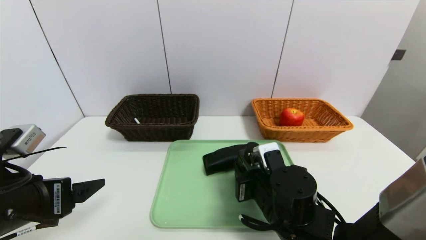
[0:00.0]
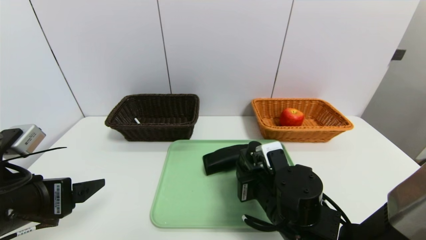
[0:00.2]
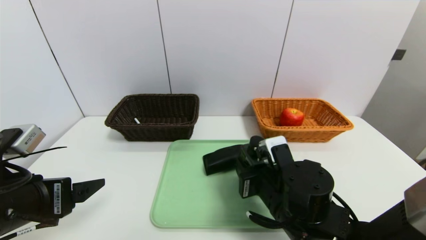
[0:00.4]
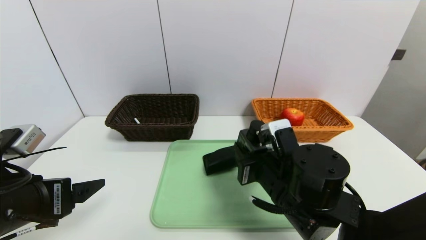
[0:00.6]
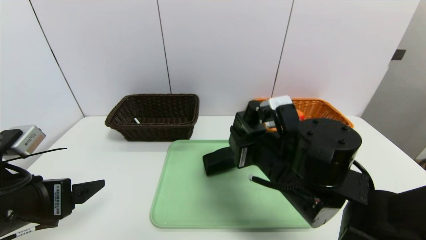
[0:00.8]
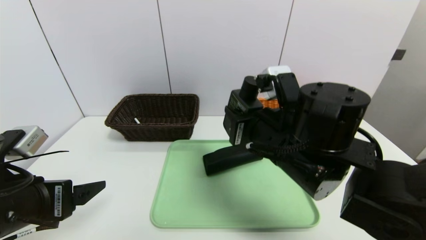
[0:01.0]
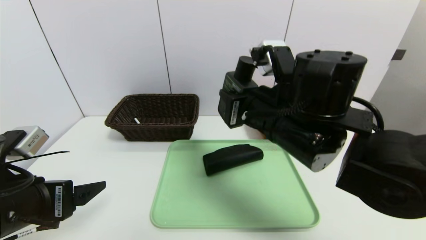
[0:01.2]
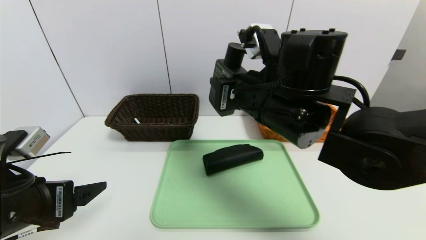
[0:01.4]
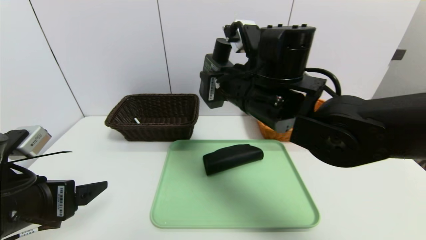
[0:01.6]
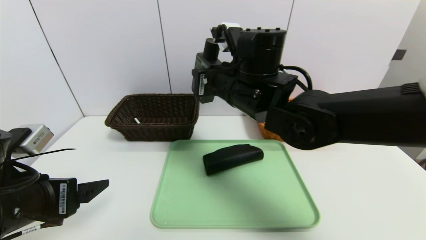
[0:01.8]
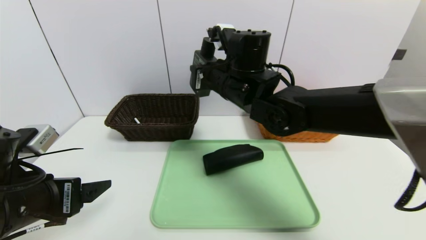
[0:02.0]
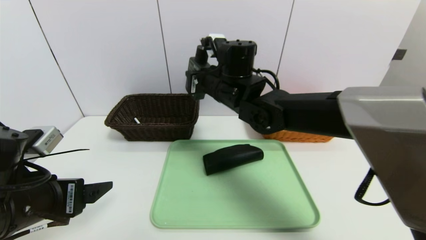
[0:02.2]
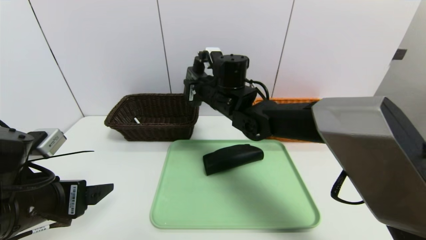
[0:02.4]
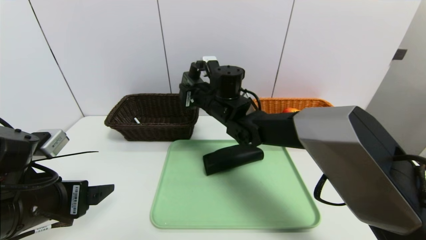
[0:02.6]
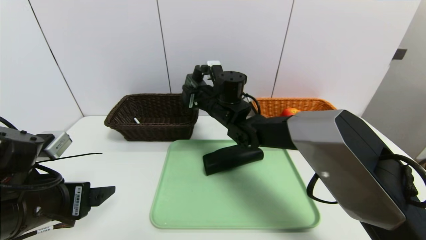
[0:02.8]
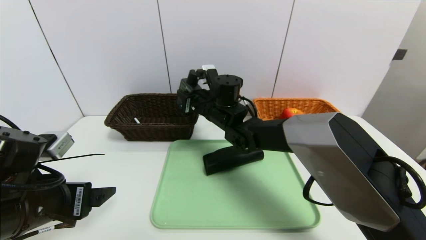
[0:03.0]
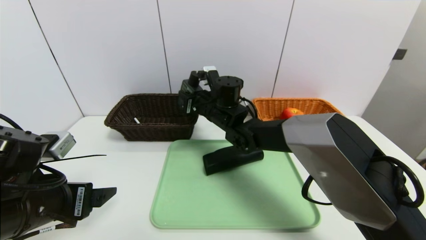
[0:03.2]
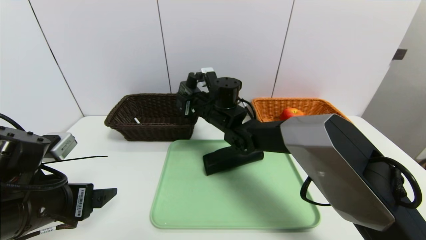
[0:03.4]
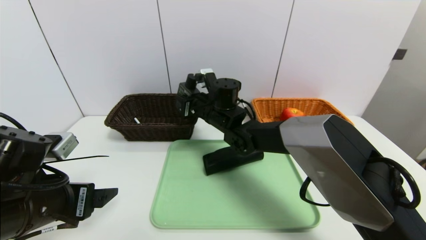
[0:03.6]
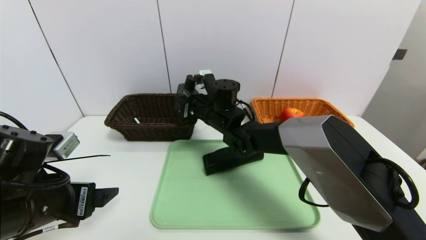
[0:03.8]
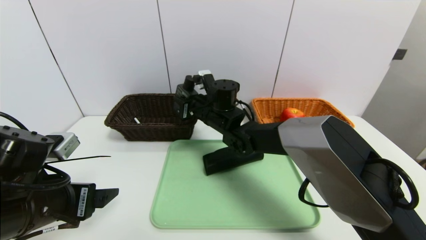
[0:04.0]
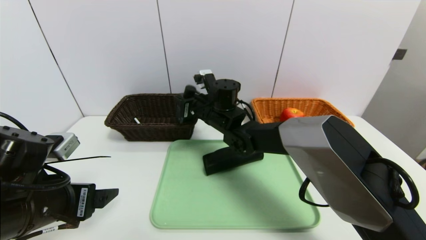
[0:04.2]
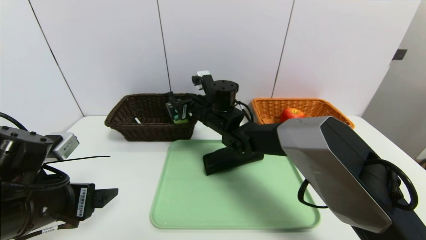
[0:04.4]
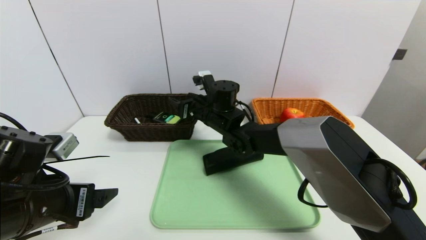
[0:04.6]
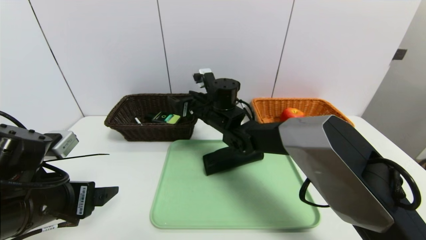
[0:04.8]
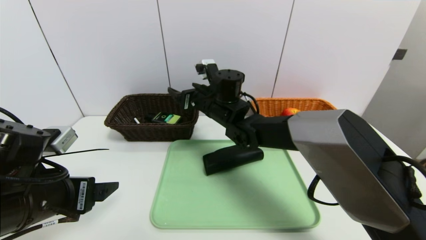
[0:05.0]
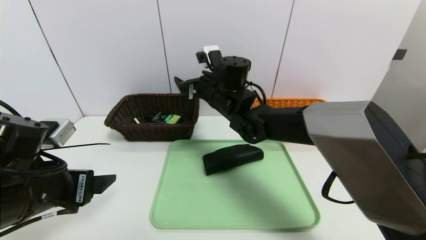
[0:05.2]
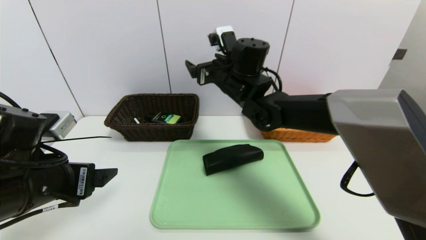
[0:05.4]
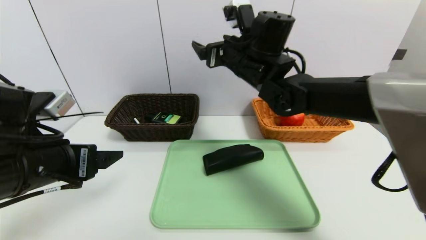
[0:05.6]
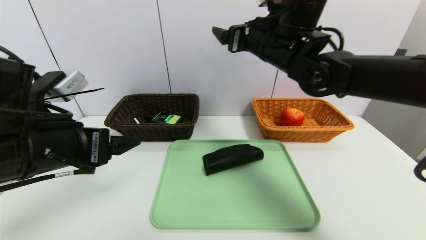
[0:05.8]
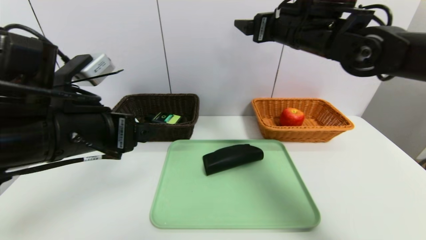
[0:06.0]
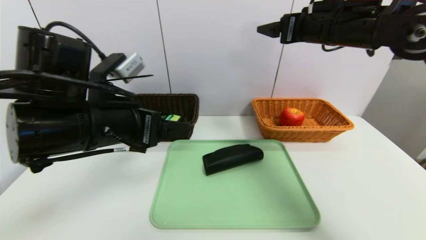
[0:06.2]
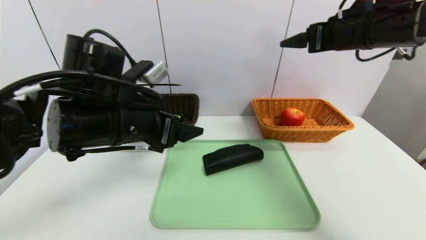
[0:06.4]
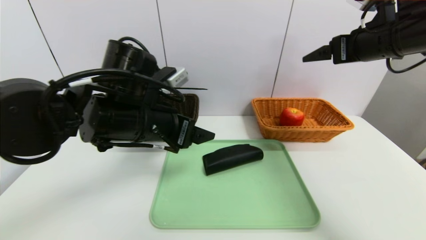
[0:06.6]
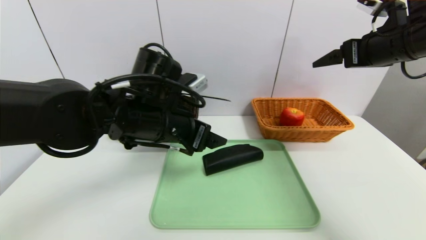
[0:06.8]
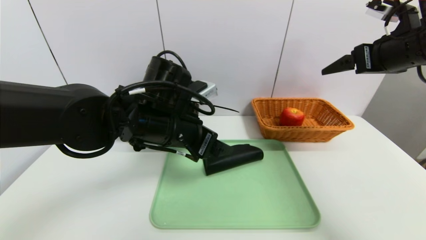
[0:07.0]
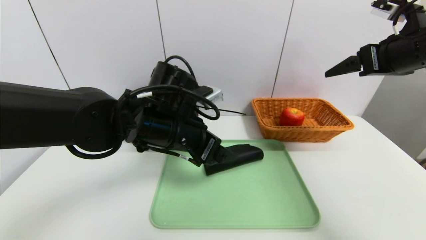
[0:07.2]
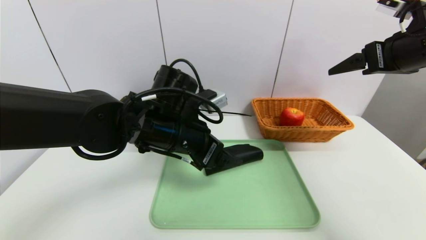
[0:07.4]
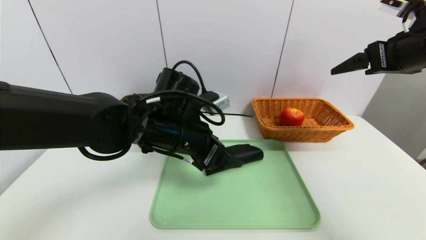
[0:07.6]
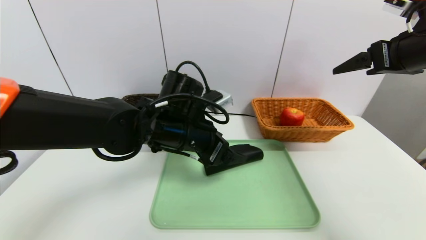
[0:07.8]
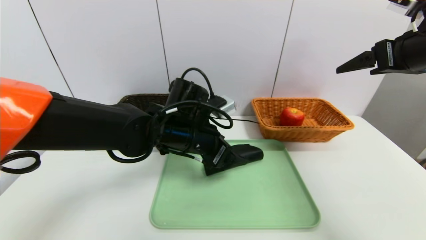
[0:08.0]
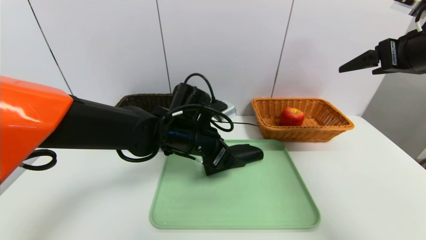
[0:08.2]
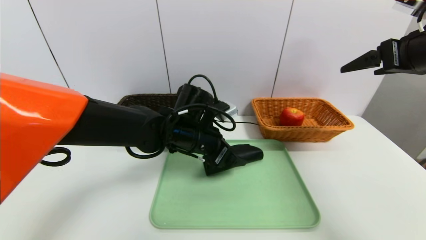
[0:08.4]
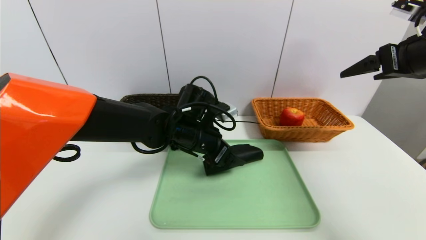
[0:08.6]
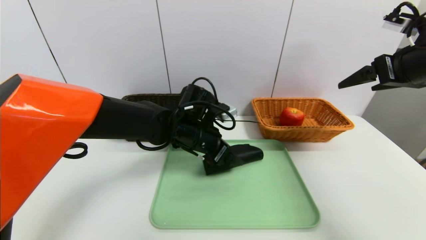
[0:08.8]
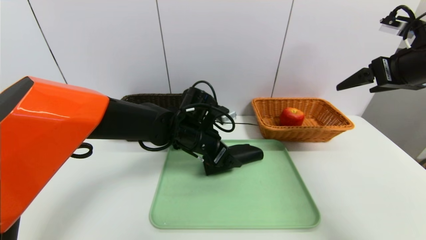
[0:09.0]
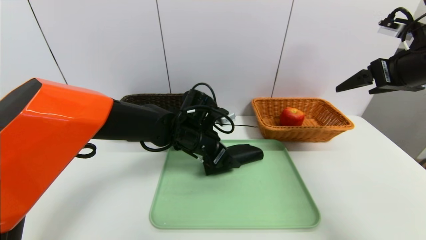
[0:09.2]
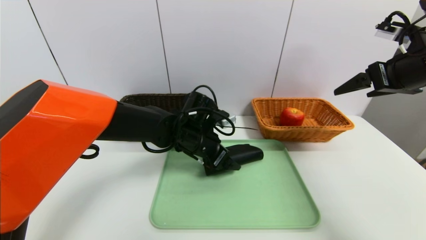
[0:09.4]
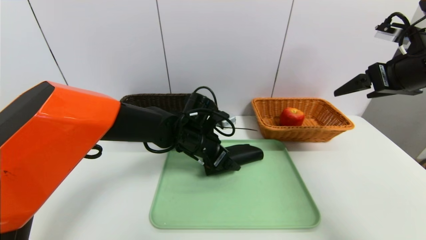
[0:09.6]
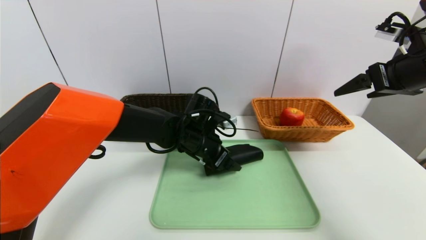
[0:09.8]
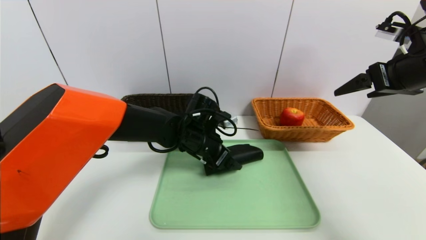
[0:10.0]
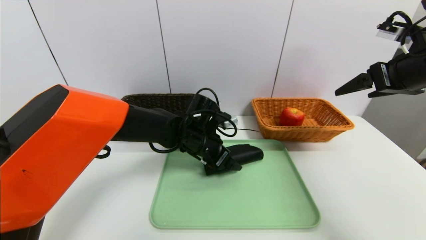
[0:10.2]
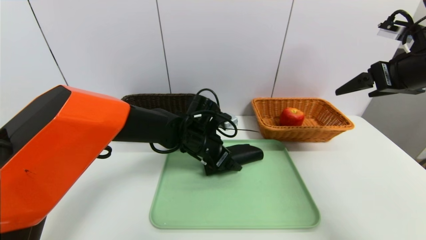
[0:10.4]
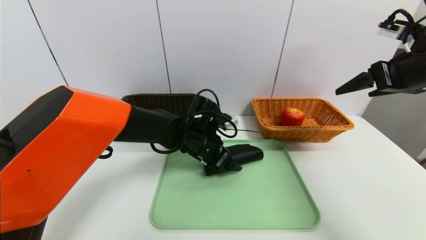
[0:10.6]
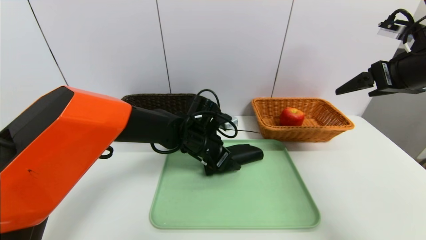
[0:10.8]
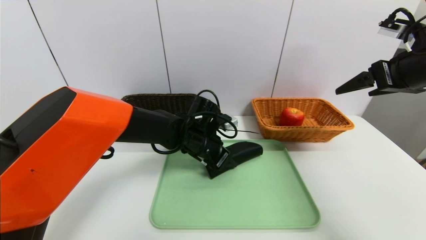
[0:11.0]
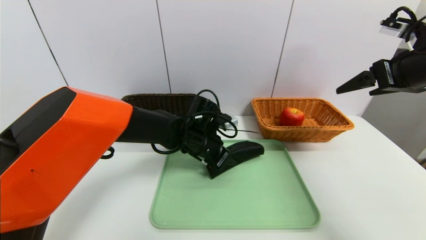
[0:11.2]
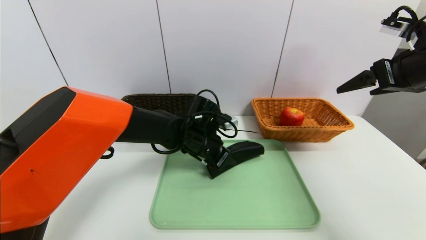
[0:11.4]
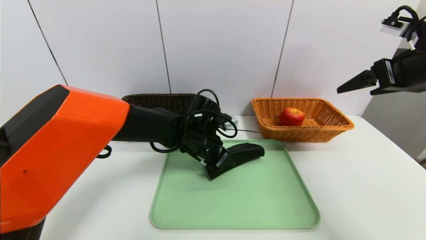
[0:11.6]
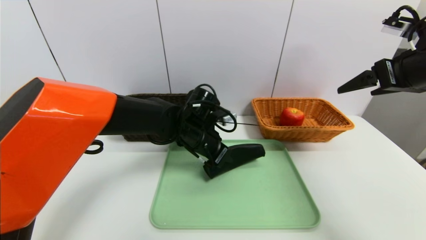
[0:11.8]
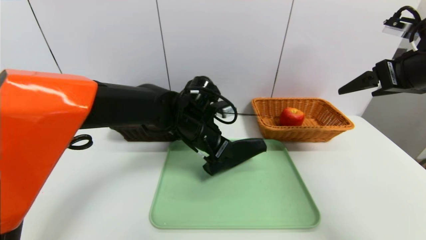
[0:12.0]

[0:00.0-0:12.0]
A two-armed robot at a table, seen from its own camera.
Task of the whole recording: place the food in the right basket with the right gripper, and place the non food items in the left basket with the left gripper.
0:00.0 to 0:01.6: The right gripper moves upward and forward, some 20 cm.
0:01.6 to 0:03.0: The right gripper is displaced forward, downward and to the left by some 15 cm.
0:03.0 to 0:04.4: The right gripper opens its fingers.
0:04.4 to 0:06.0: The left gripper travels upward and to the right by approximately 10 cm. The right gripper shifts some 25 cm upward and to the right, and opens.
0:06.0 to 0:07.6: The right gripper goes approximately 15 cm to the right and backward; the left gripper moves to the right, forward and downward, approximately 15 cm.
0:07.6 to 0:09.0: The left gripper travels forward and downward by approximately 10 cm.
0:09.0 to 0:10.4: The grippers move only a little.
0:10.4 to 0:12.0: The left gripper heads upward, covering about 5 cm, and closes up.

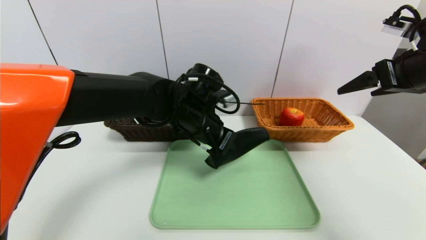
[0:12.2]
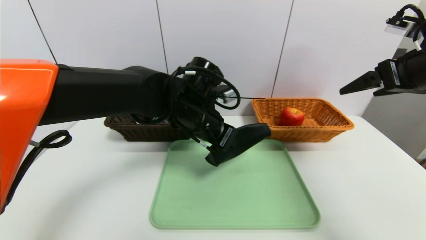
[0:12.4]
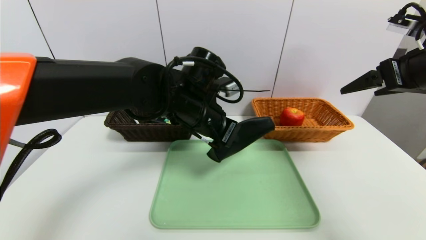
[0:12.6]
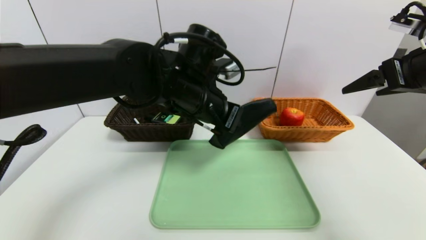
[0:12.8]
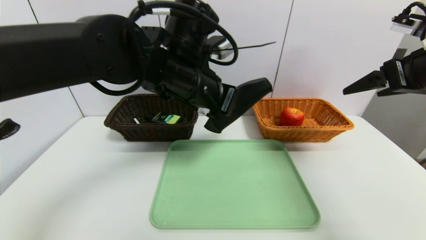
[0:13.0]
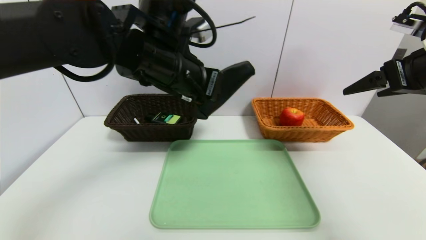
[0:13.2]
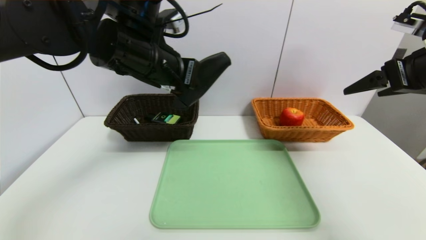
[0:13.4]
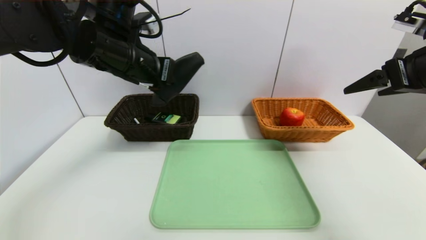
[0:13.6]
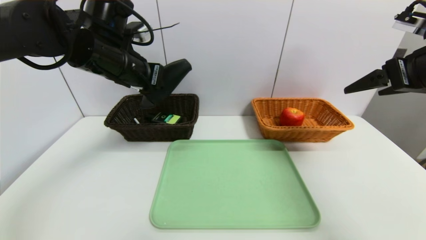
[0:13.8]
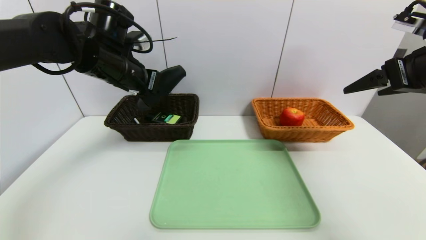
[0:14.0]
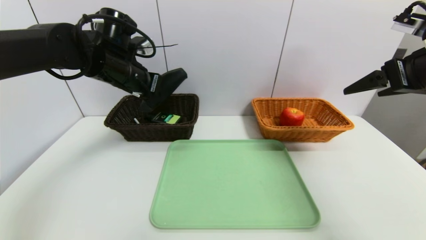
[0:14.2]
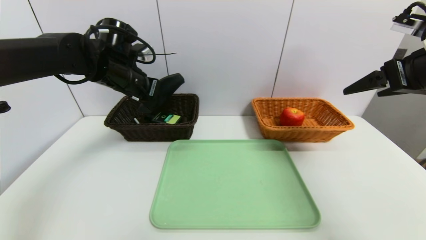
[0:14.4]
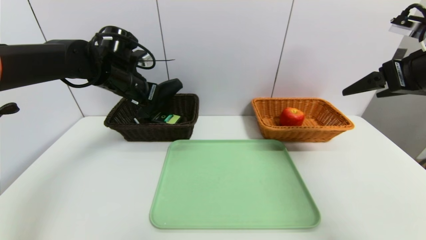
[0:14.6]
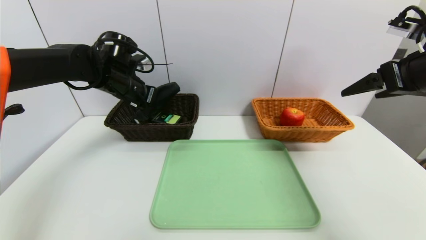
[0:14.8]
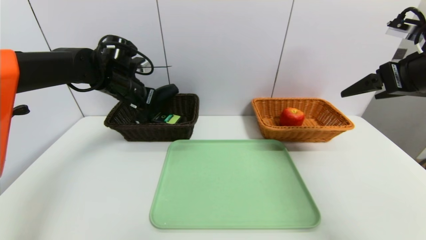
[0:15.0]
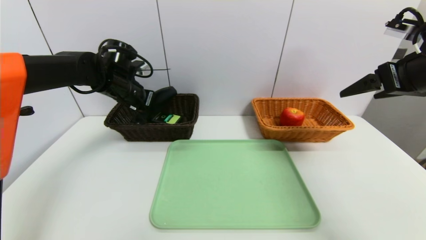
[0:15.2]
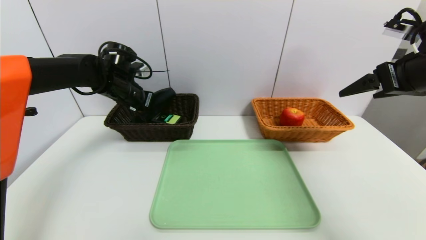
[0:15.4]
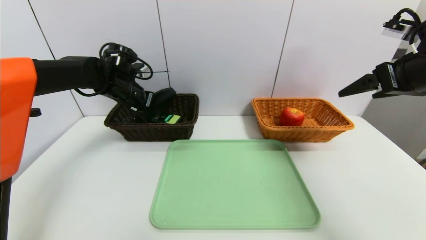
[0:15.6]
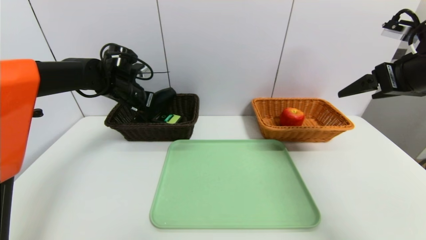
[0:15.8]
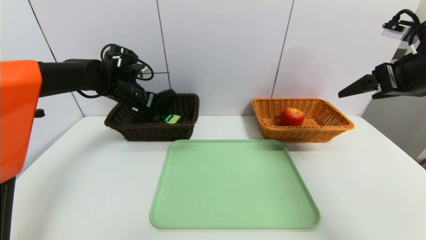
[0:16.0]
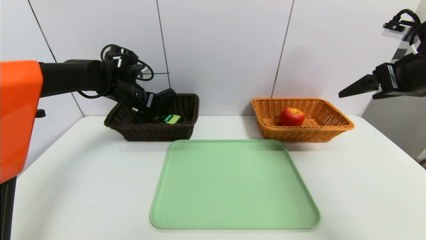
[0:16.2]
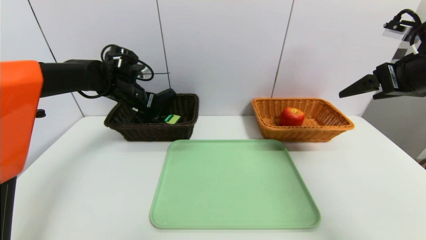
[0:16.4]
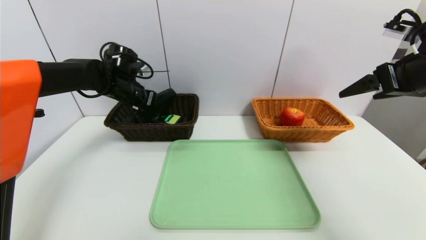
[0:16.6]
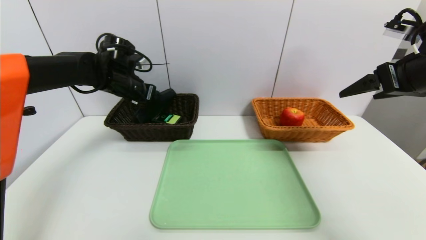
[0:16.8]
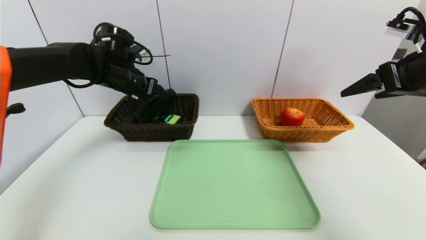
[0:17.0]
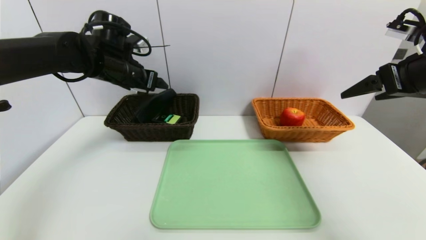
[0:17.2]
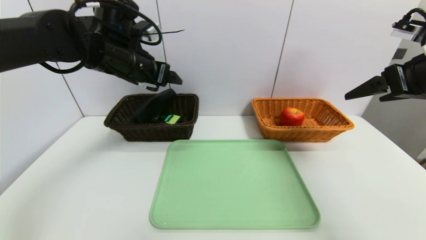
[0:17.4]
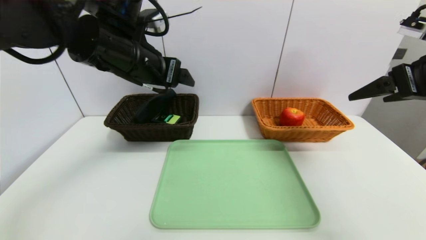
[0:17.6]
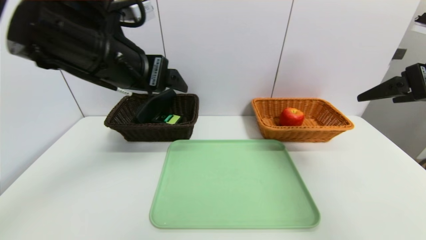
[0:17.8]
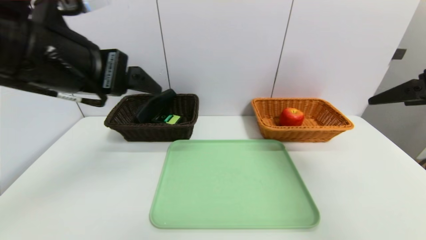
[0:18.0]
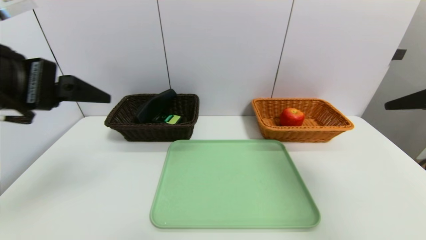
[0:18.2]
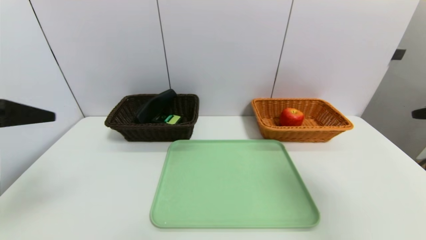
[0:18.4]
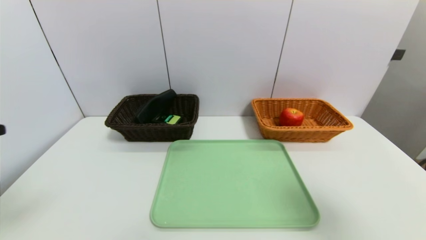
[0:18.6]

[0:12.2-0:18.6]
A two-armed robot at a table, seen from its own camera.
Task of the whole recording: place the food in the right basket with the right gripper, and place the non food items in the left basket with the left gripper.
Step, 0:12.2 to 0:16.8: Grasp the glasses case and put it in the left basket.
0:12.2 to 0:13.8: The left gripper heads to the left and upward, covering approximately 15 cm.
0:13.8 to 0:15.4: The left gripper is displaced forward, downward and to the left by roughly 15 cm.
0:15.4 to 0:17.0: The left gripper opens.
0:17.0 to 0:18.6: The right gripper heads backward, covering about 20 cm, while the left gripper travels backward by some 35 cm.
